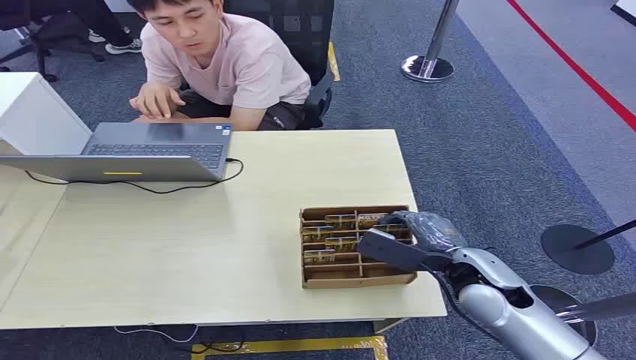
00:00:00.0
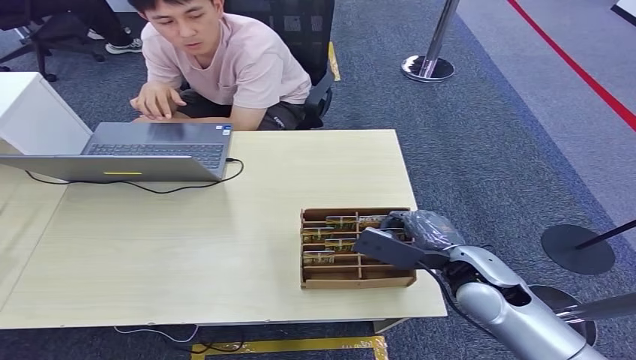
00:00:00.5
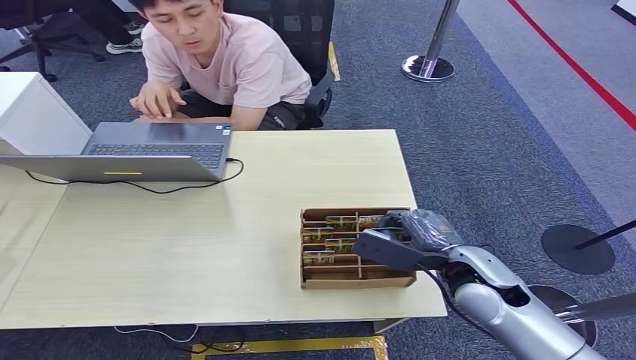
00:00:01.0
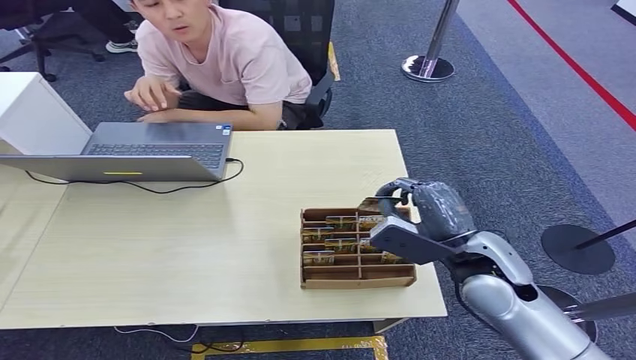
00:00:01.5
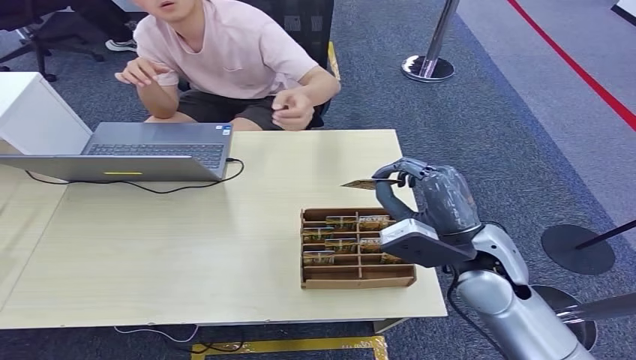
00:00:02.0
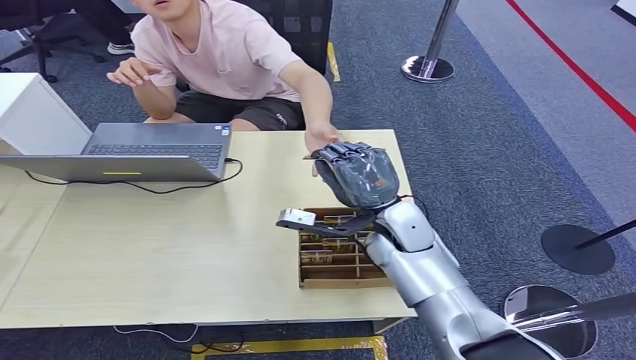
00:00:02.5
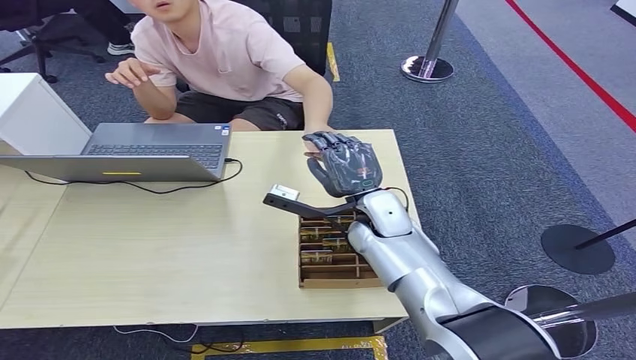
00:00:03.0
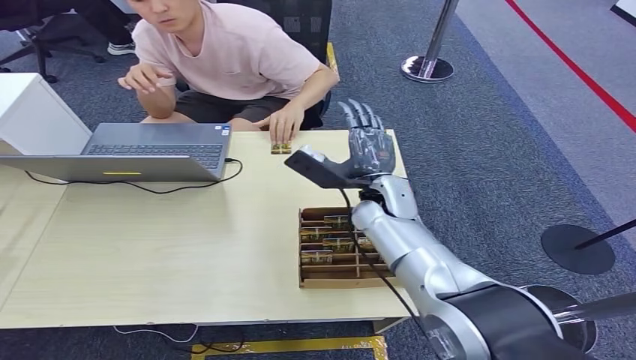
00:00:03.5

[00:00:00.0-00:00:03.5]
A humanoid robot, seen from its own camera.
Step, 00:00:00.0 to 00:00:02.0: Pick up the key card from the card box.
Step, 00:00:02.5 to 00:00:03.5: Hand the key card to the target.
00:00:02.0 to 00:00:03.5: The right hand shifts approximately 15 cm forward and to the left.

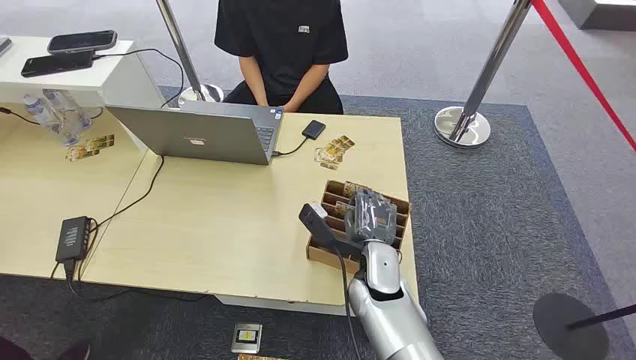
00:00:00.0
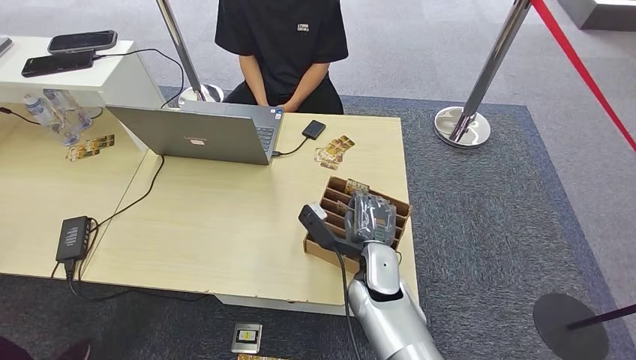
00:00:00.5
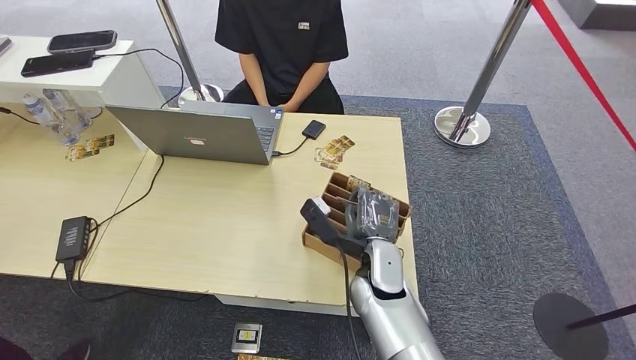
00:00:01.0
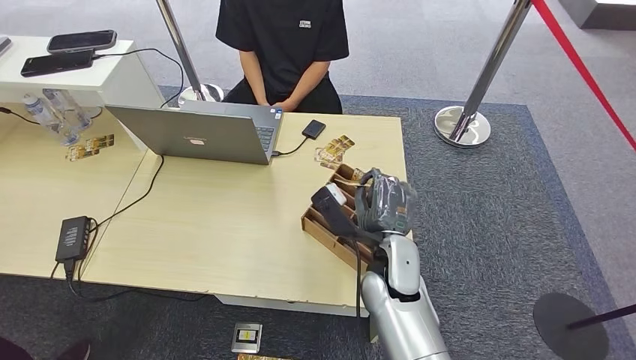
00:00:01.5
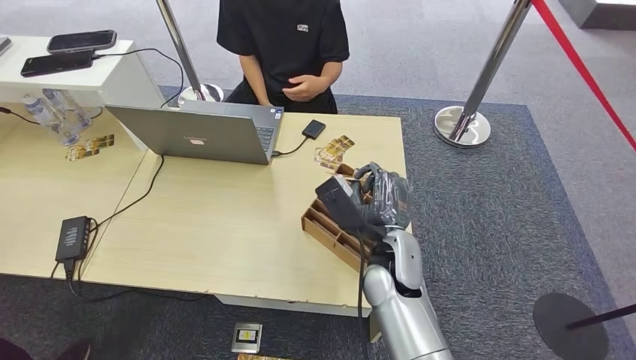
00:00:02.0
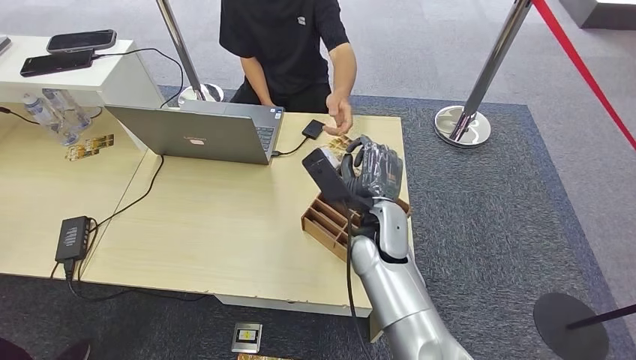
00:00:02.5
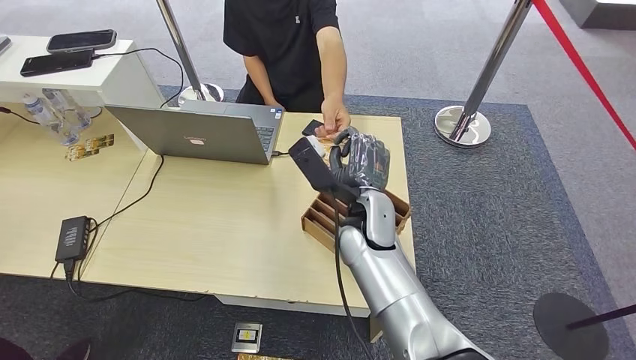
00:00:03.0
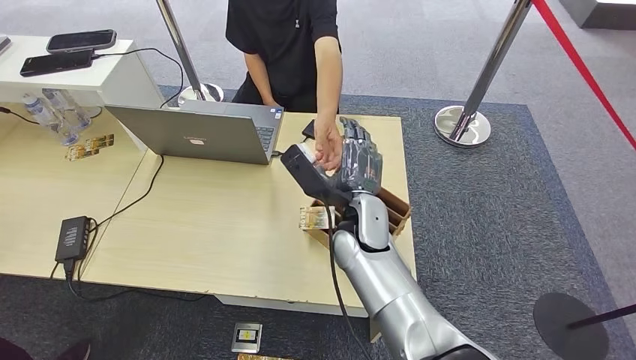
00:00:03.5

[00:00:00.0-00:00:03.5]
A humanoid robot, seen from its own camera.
Step, 00:00:00.0 to 00:00:02.0: Pick up the key card from the card box.
Step, 00:00:02.5 to 00:00:03.5: Hand the key card to the target.
00:00:02.0 to 00:00:03.5: The right hand shifts by roughly 5 cm.
